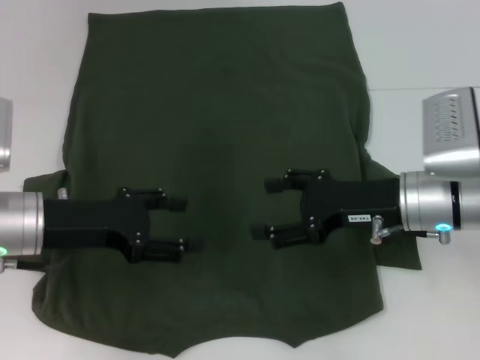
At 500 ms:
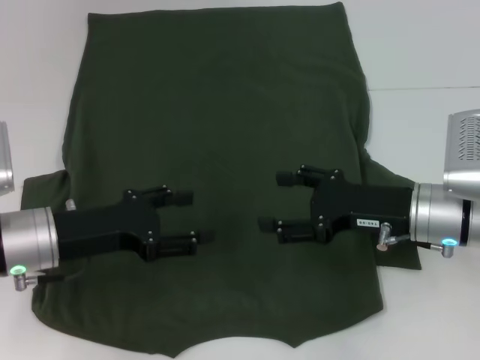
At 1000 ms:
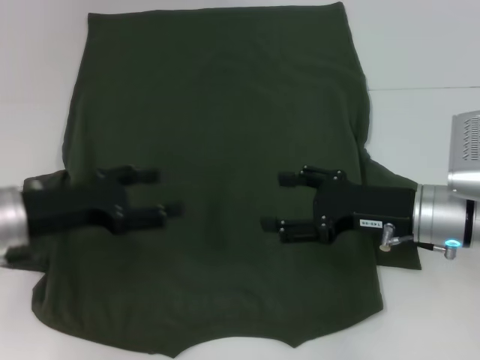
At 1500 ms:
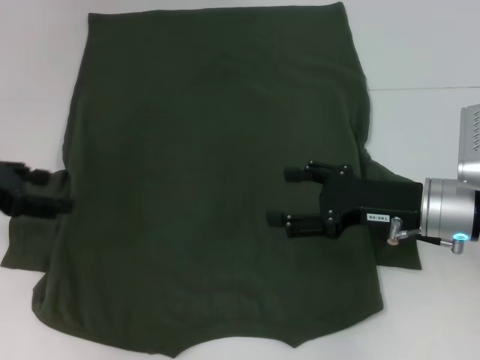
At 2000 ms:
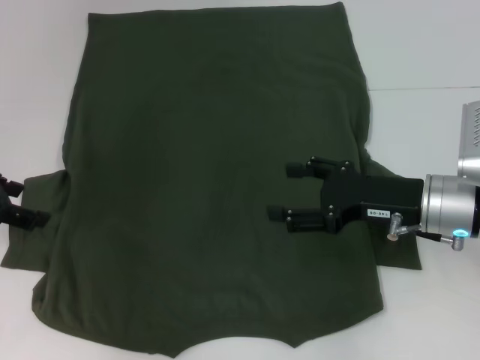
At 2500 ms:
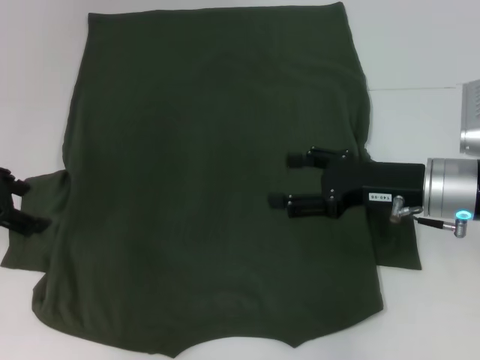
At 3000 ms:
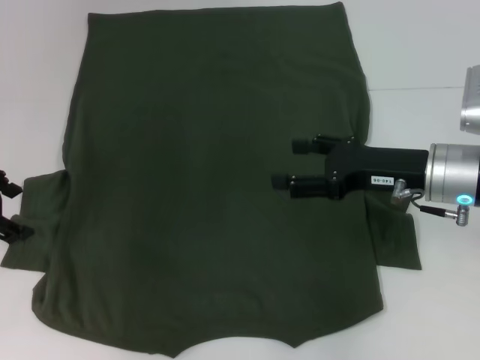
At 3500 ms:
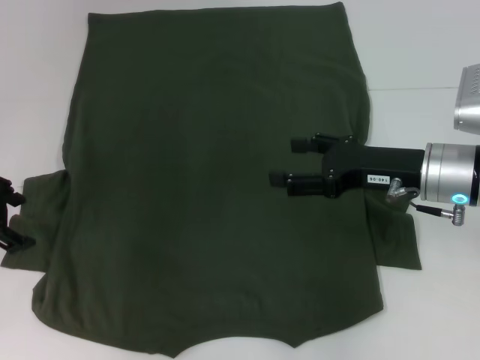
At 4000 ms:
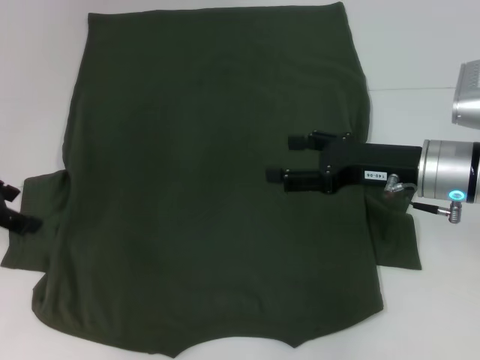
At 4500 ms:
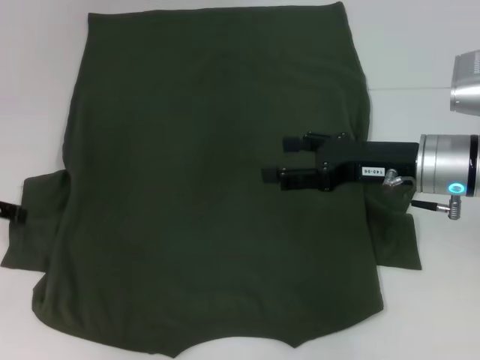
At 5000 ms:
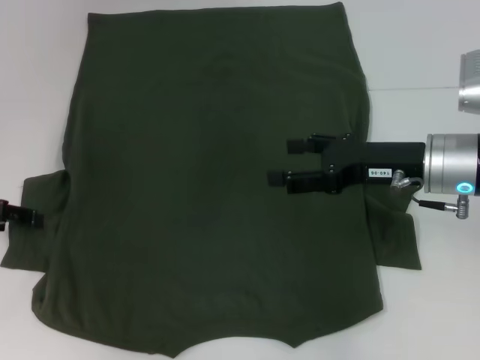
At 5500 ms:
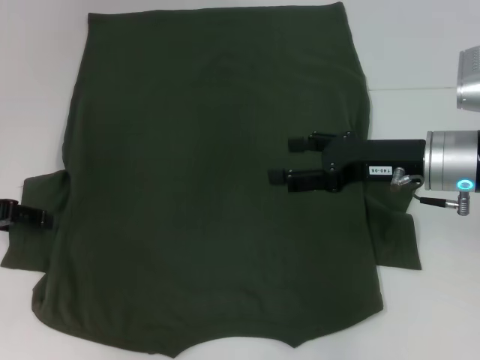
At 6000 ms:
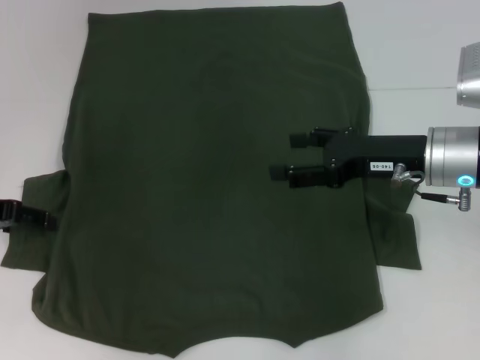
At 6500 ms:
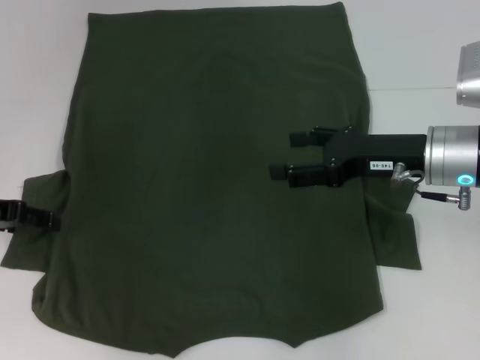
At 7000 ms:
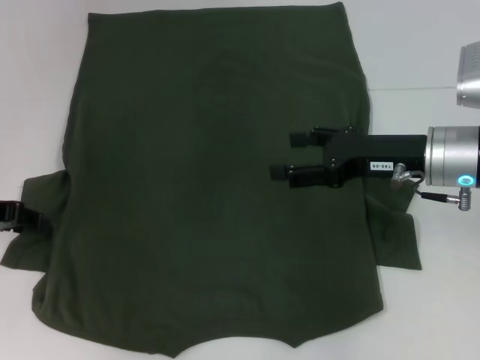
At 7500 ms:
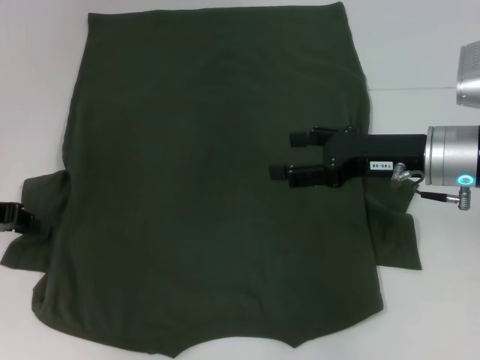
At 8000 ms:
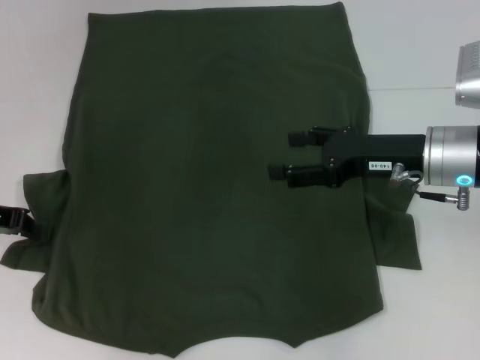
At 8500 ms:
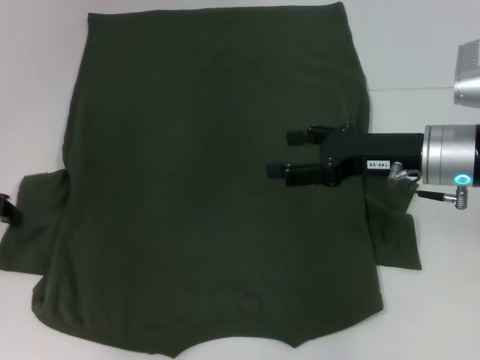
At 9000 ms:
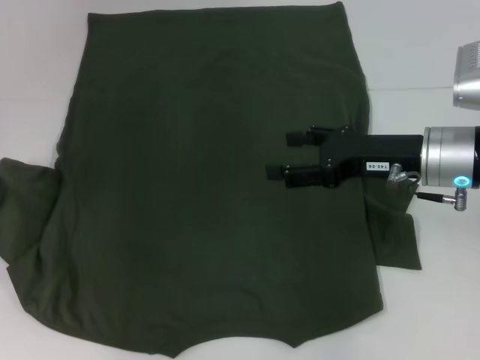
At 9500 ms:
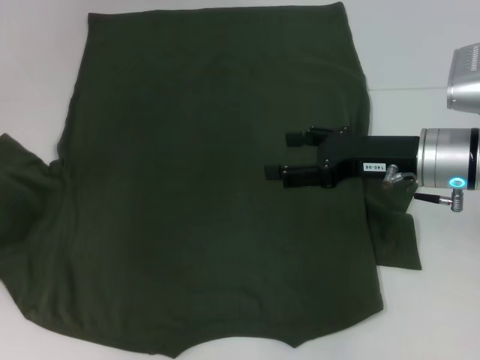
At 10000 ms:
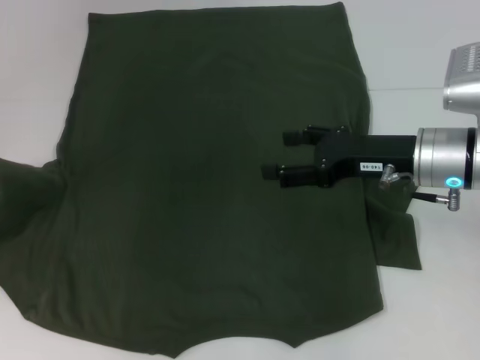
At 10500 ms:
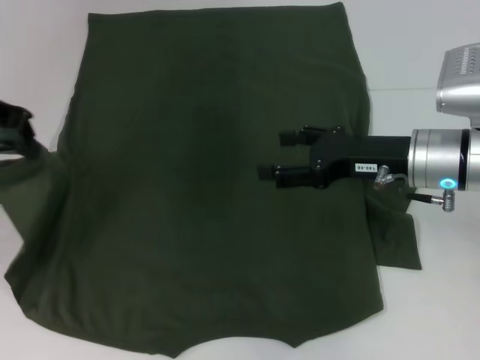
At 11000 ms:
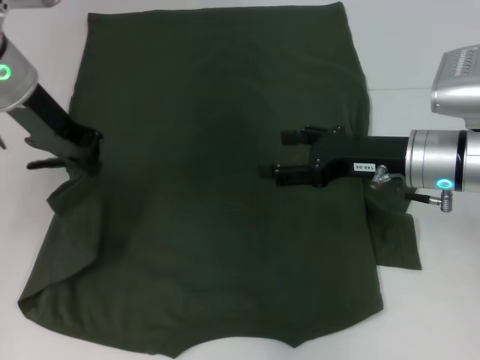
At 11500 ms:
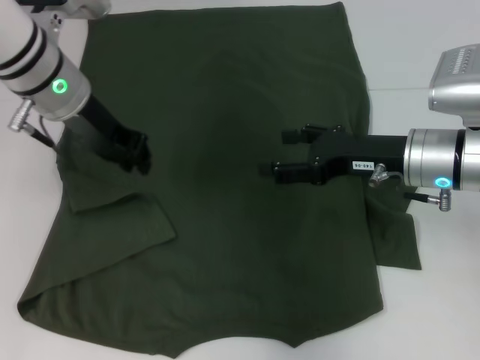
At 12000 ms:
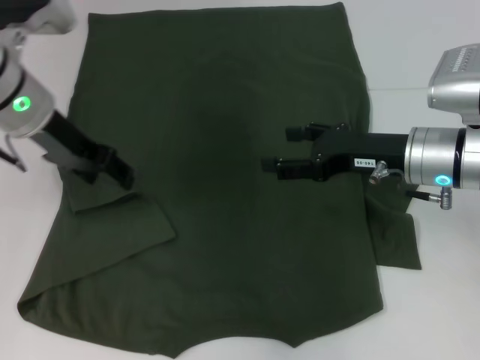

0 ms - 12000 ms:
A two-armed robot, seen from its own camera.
0 ms - 2000 ms: The left gripper goes approximately 10 cm to the left and upward.
8000 ms - 10000 ms: The left gripper is displaced upward by roughly 10 cm.
10000 ms - 12000 ms: The left gripper shifts about 15 cm to the right, and opens up.

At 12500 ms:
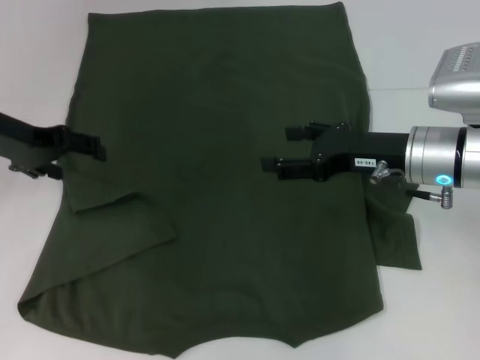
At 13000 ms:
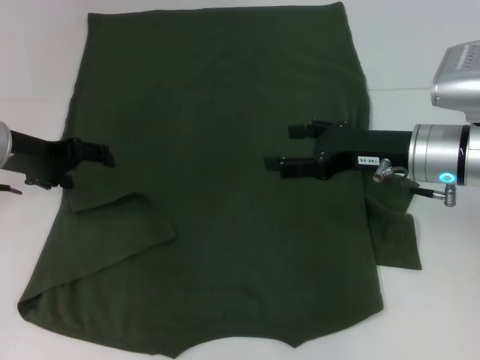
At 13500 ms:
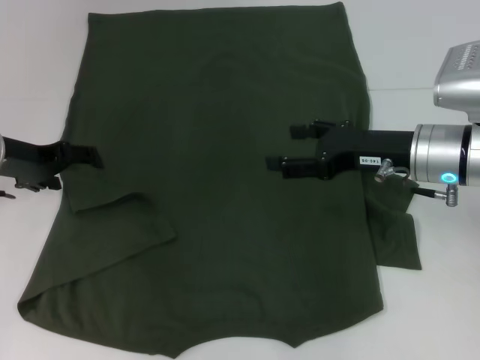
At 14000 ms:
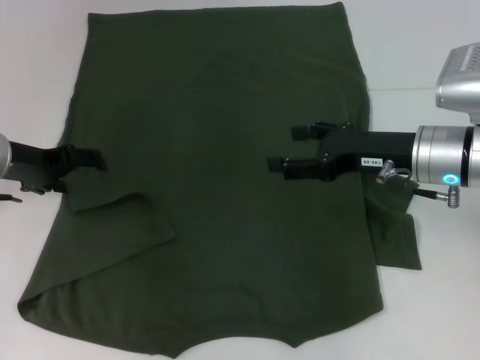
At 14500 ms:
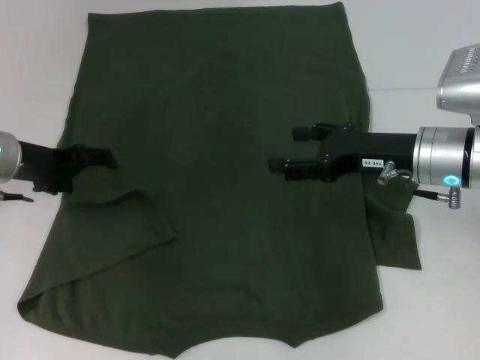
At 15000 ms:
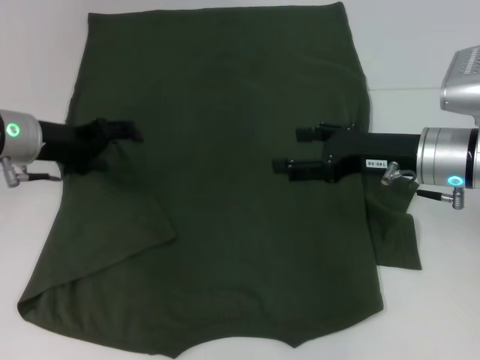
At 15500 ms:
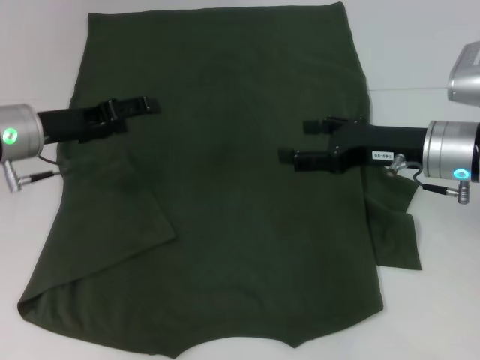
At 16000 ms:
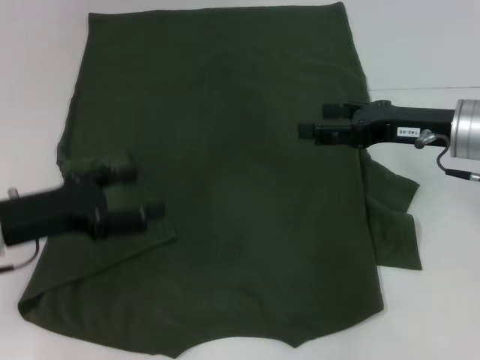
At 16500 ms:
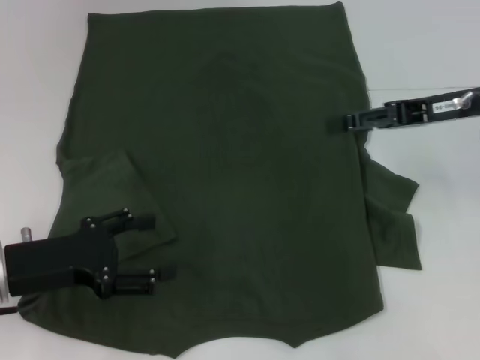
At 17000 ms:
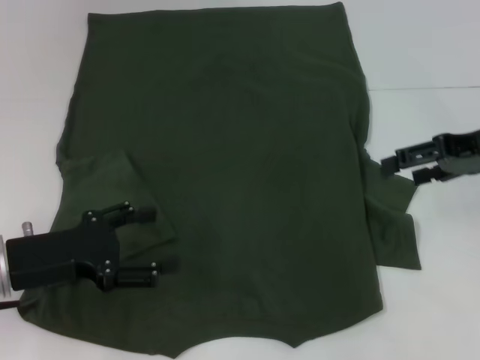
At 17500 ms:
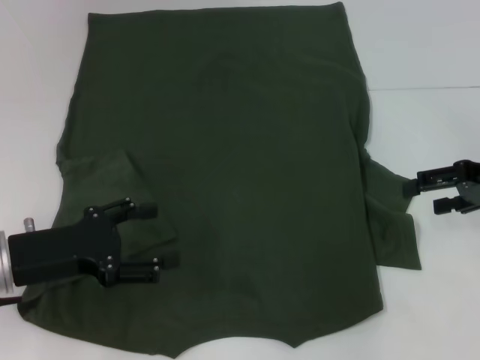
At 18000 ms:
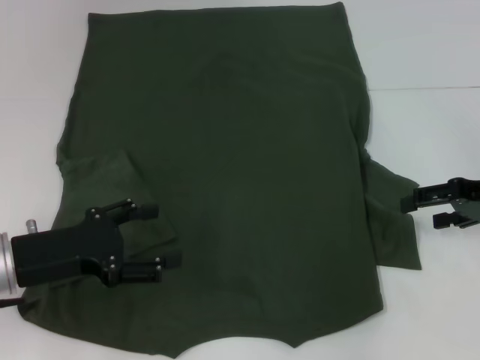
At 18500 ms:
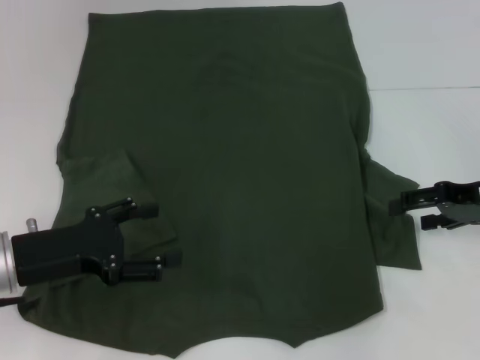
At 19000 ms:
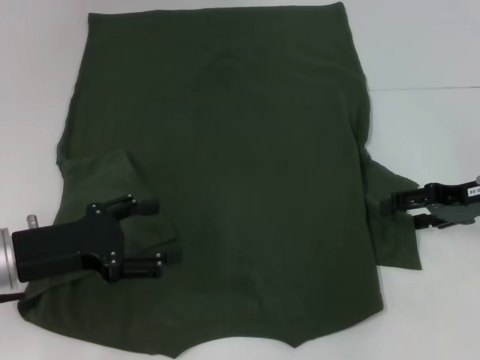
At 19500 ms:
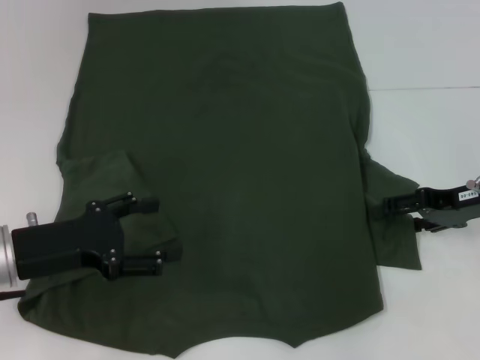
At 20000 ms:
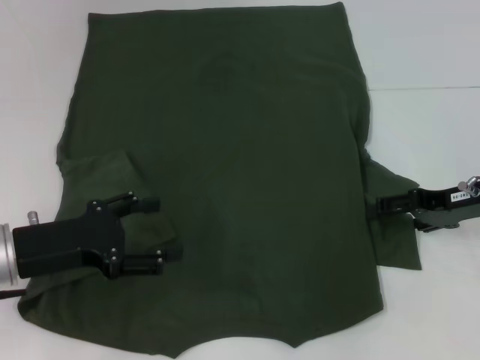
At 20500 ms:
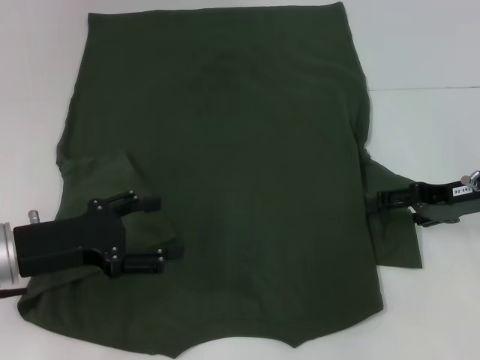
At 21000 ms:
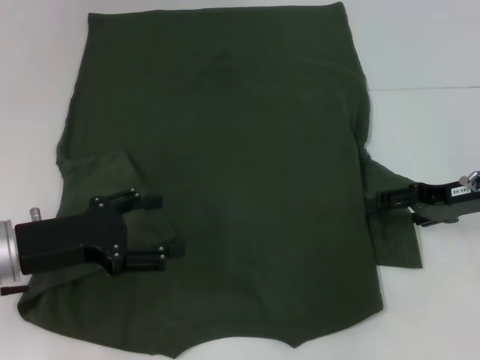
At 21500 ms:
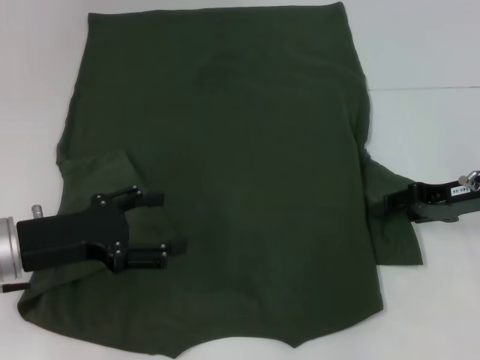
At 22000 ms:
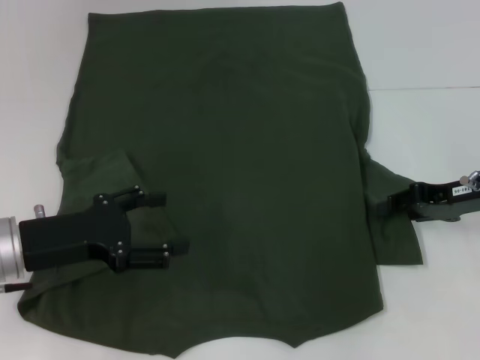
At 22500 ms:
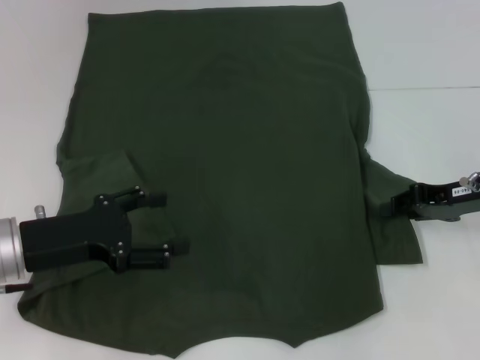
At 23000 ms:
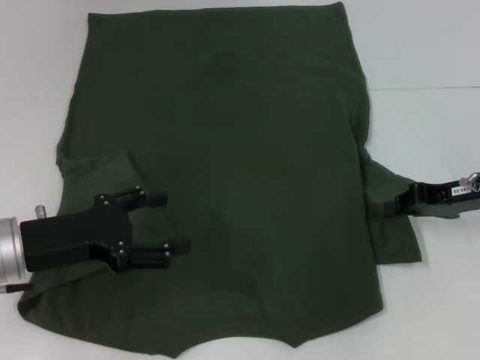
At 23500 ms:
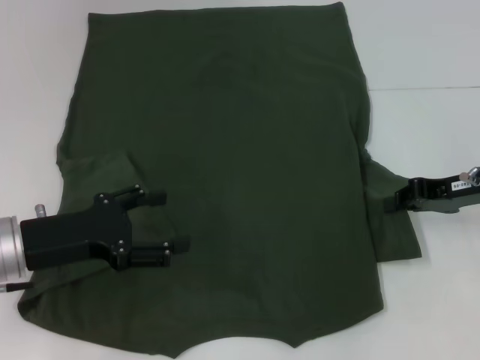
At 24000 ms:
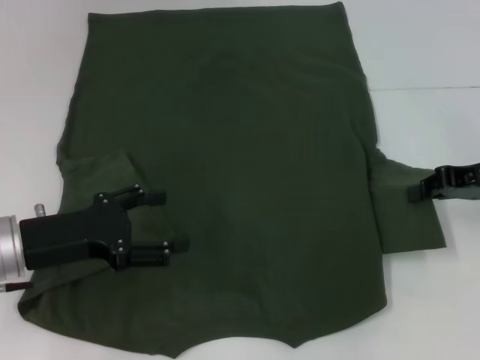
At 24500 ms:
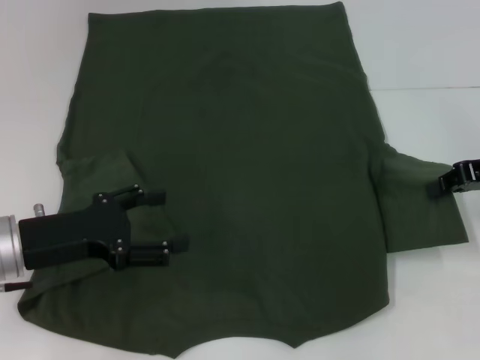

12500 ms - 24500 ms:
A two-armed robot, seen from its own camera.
Step, 12500 ms - 15000 ms: Fold the bottom left sleeve with your left hand.
12500 ms - 14500 ms: The left gripper heads downward, covering some 5 cm.
14500 ms - 16500 ms: The left gripper shifts about 15 cm backward. Meanwhile the right gripper is displaced upward and to the right by approximately 10 cm.
16500 ms - 18500 ms: The right gripper shifts approximately 10 cm downward and to the right.
18500 ms - 20500 ms: The grippers stay close to where they were, moving slightly.
20500 ms - 22500 ms: The right gripper closes its fingers.
22500 ms - 24500 ms: The right gripper shifts some 5 cm upward.

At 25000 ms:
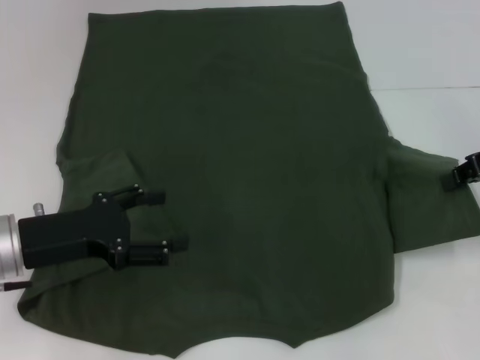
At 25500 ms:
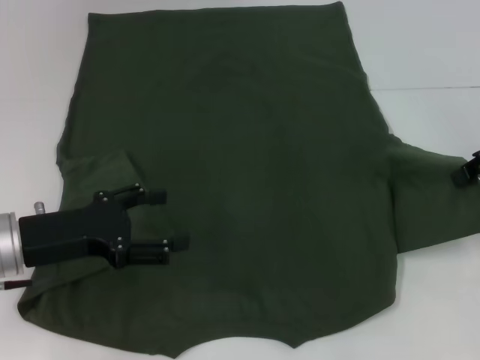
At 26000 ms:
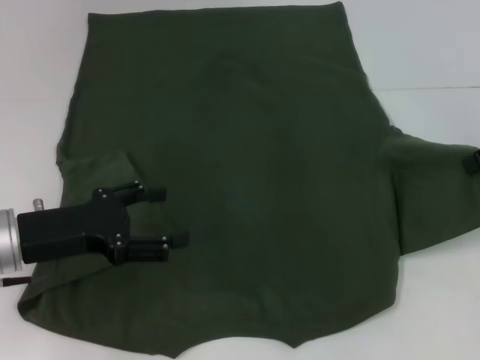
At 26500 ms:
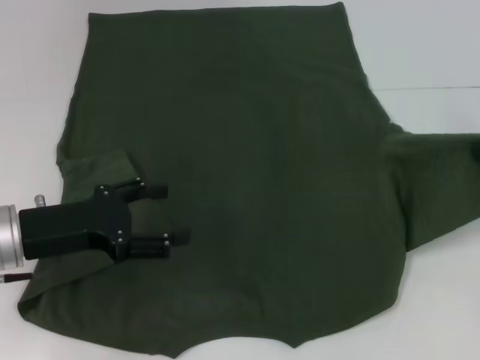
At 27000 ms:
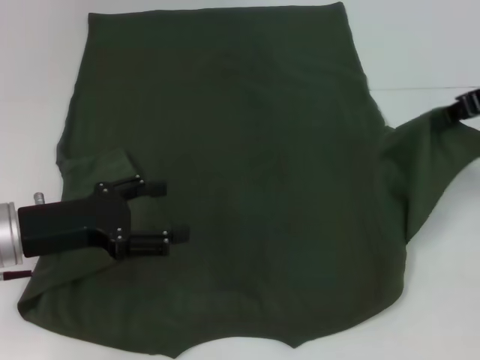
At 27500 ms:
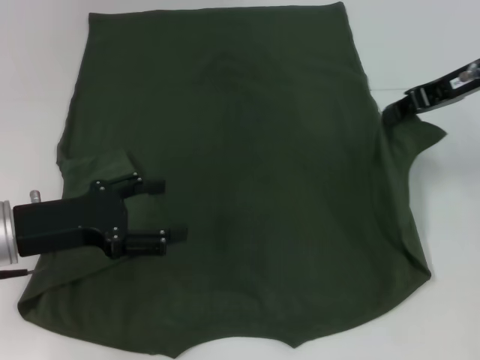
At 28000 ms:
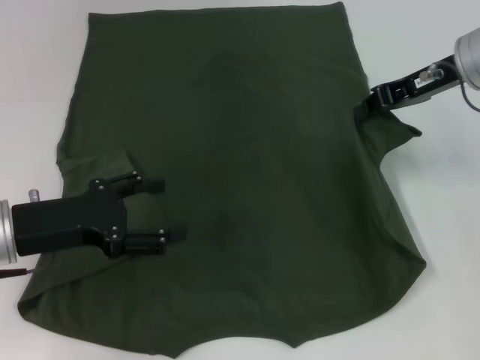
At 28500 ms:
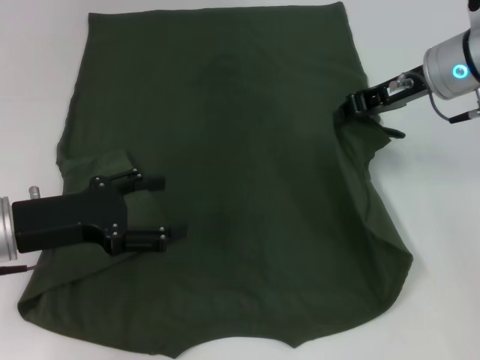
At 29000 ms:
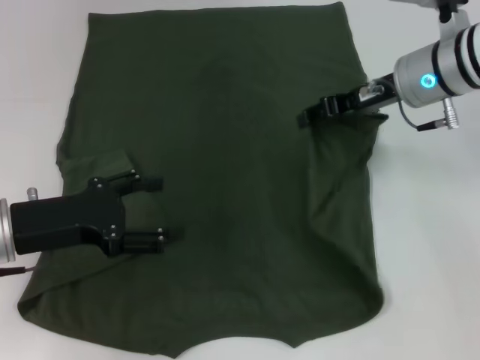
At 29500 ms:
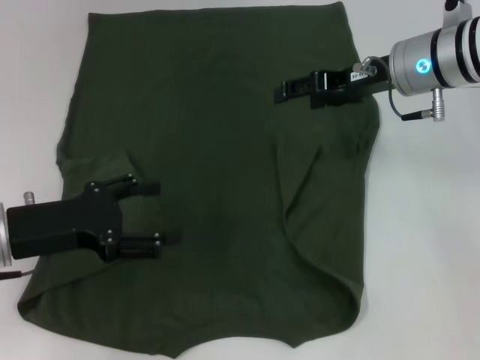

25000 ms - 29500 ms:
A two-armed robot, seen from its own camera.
25000 ms - 27000 ms: The right gripper is displaced upward by about 5 cm.
27000 ms - 29500 ms: The right gripper is displaced to the left and downward by approximately 15 cm, and opens up.
